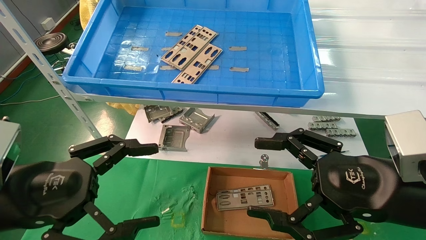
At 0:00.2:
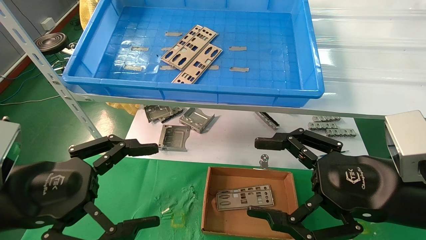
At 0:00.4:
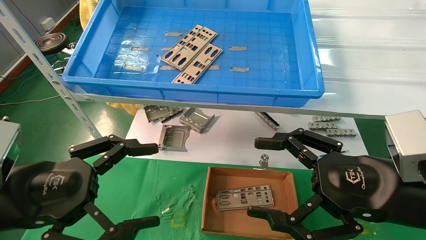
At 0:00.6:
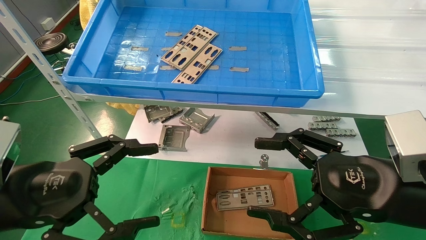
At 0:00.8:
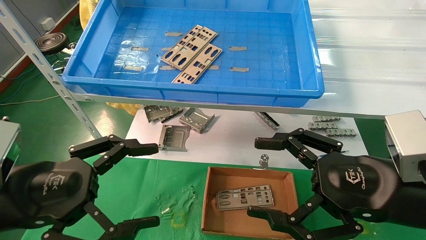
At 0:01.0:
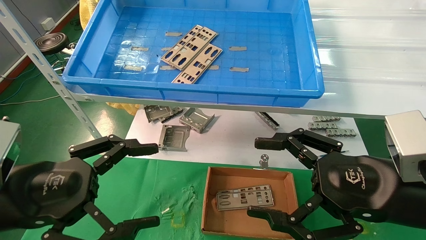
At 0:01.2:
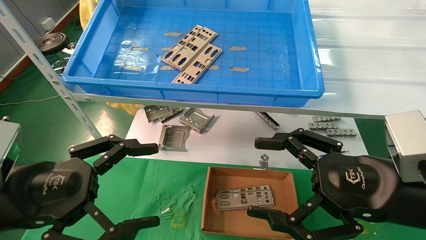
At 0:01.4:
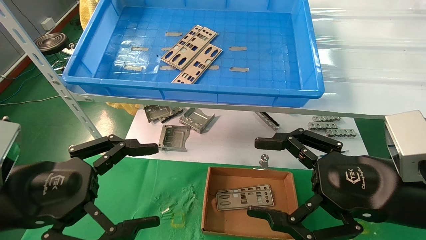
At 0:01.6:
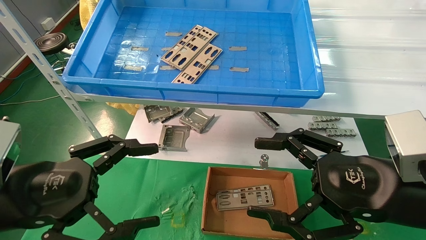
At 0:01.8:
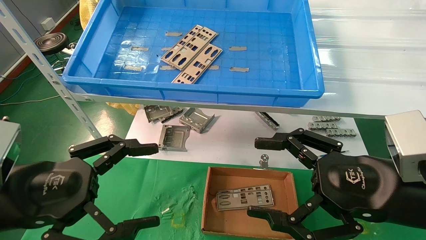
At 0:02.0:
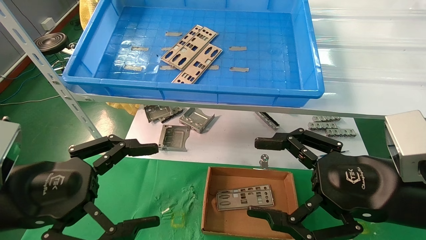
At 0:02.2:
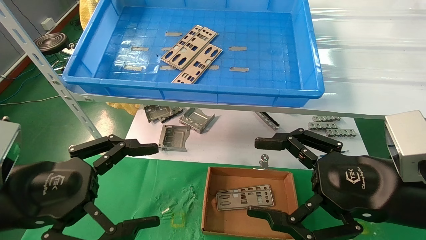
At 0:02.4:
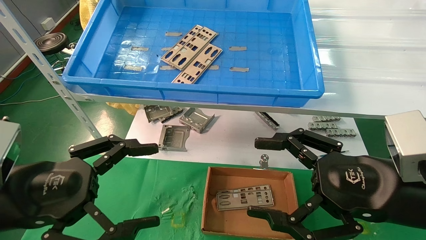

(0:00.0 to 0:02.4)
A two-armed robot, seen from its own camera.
Task of the whole recording: pick up the parts on the tray and put them in the cardboard box.
0:00.0 - 0:02.4: Both grippers stay about where they are.
